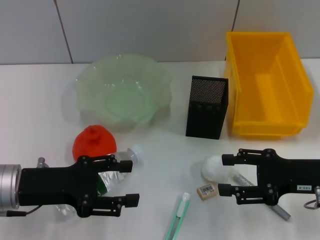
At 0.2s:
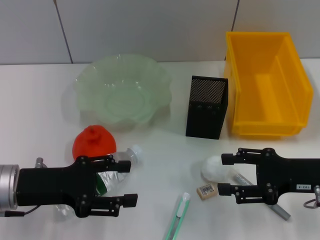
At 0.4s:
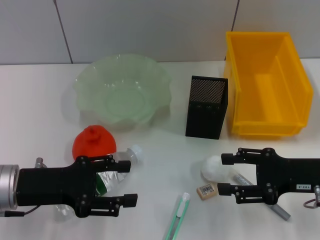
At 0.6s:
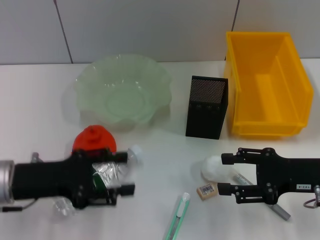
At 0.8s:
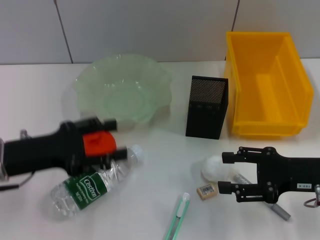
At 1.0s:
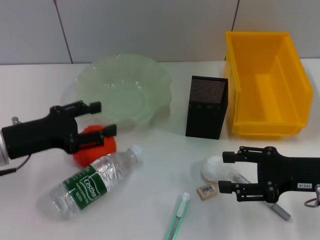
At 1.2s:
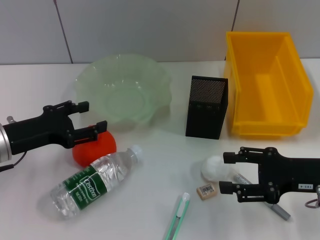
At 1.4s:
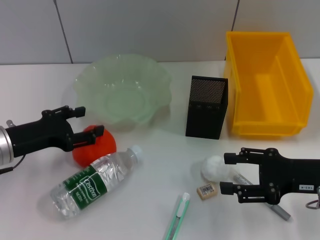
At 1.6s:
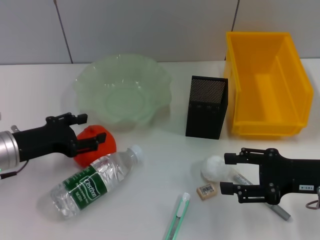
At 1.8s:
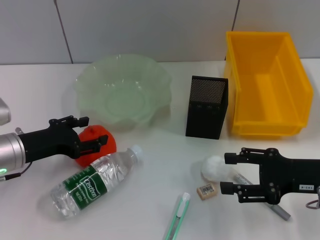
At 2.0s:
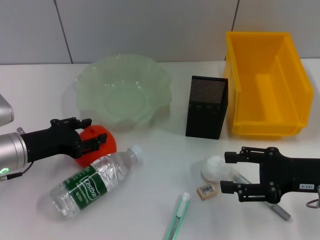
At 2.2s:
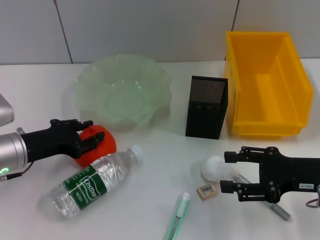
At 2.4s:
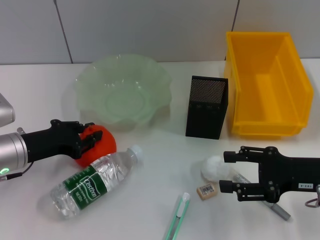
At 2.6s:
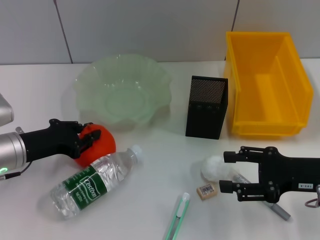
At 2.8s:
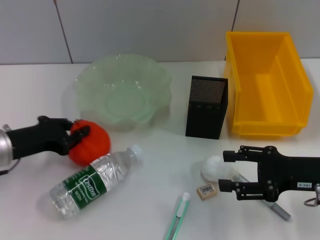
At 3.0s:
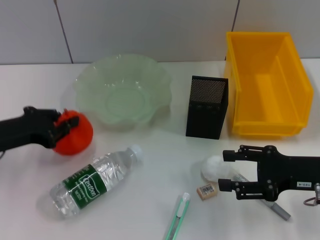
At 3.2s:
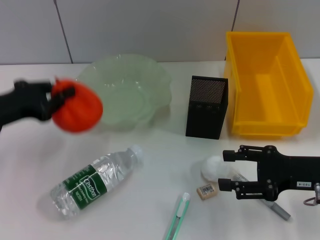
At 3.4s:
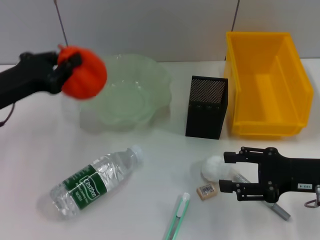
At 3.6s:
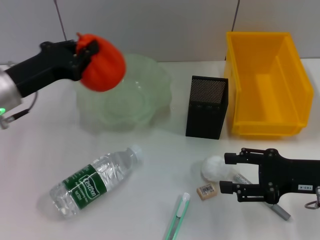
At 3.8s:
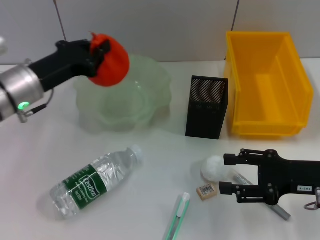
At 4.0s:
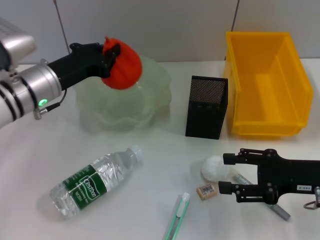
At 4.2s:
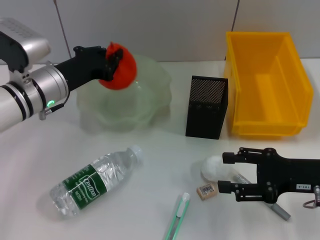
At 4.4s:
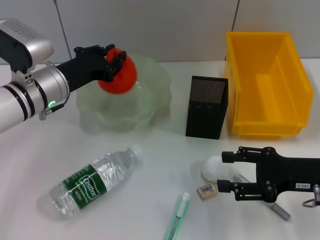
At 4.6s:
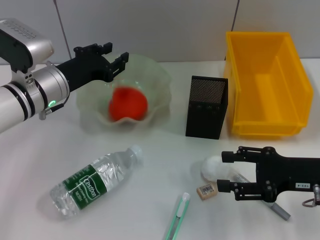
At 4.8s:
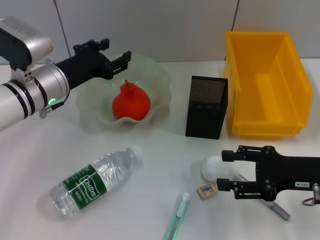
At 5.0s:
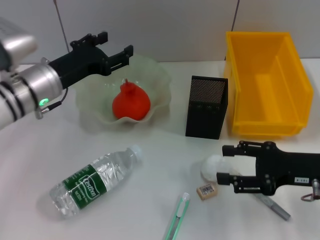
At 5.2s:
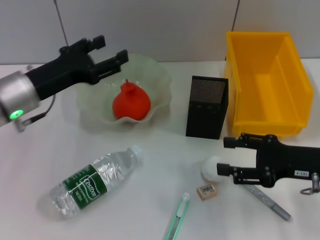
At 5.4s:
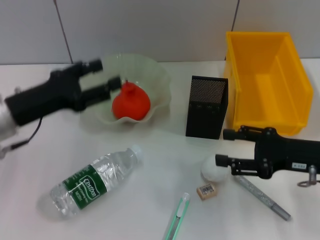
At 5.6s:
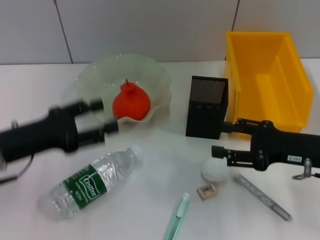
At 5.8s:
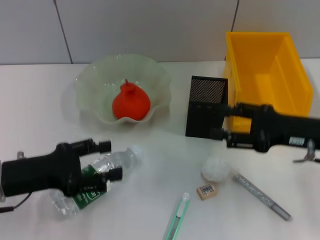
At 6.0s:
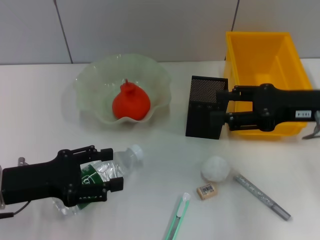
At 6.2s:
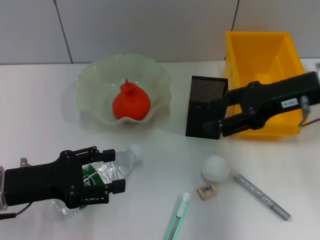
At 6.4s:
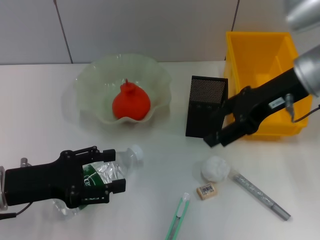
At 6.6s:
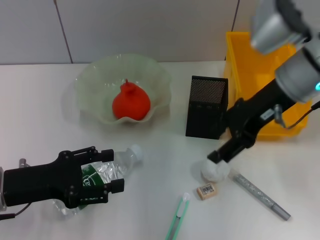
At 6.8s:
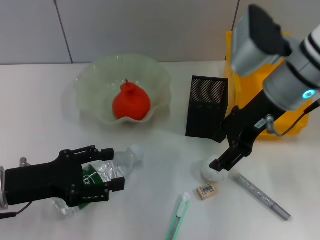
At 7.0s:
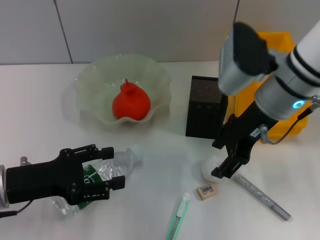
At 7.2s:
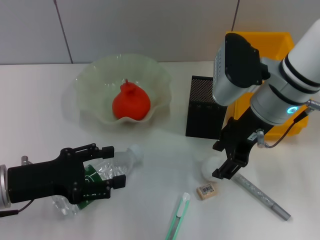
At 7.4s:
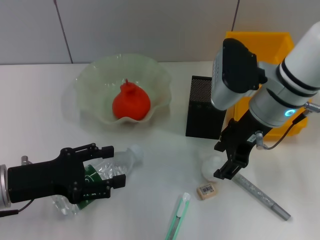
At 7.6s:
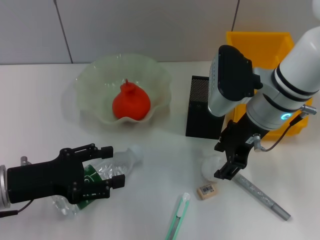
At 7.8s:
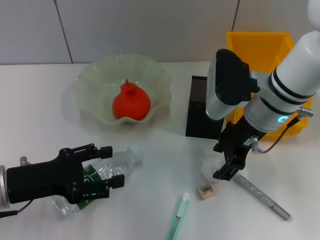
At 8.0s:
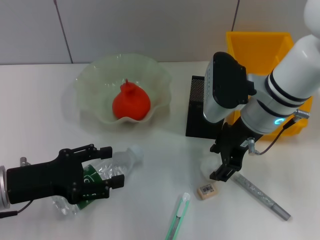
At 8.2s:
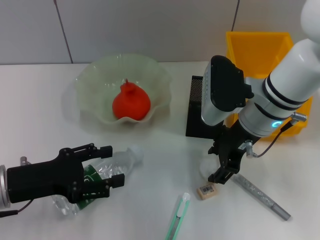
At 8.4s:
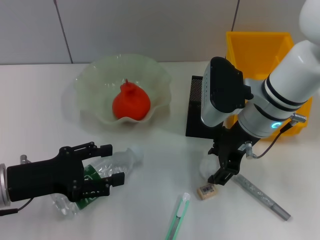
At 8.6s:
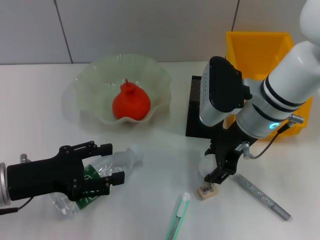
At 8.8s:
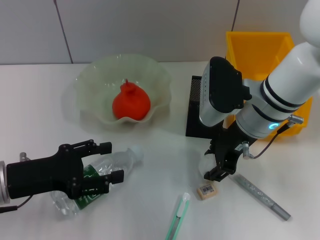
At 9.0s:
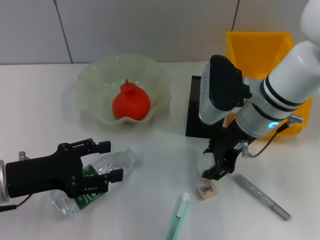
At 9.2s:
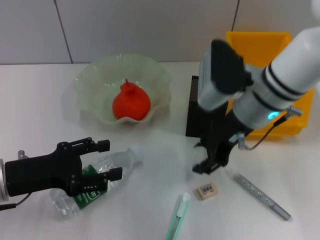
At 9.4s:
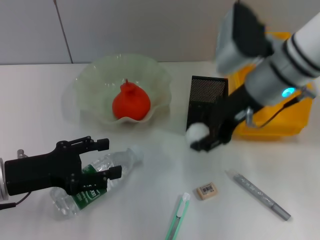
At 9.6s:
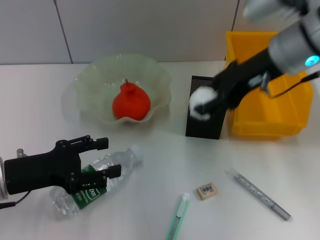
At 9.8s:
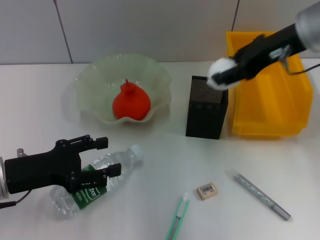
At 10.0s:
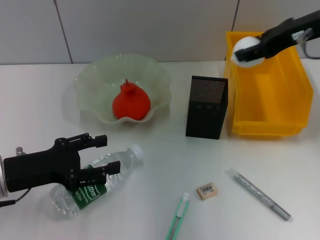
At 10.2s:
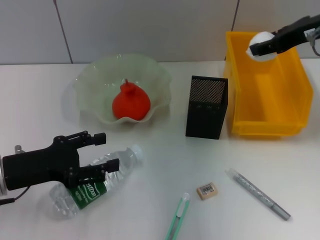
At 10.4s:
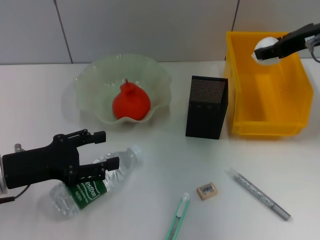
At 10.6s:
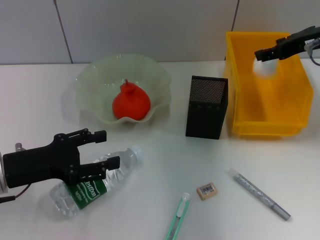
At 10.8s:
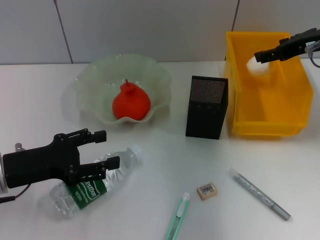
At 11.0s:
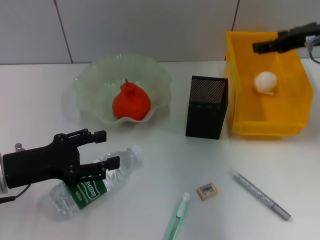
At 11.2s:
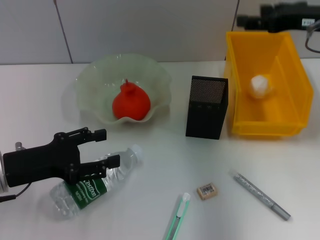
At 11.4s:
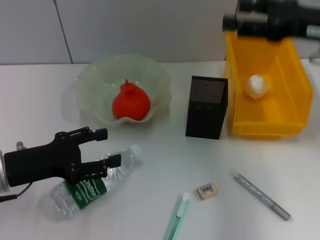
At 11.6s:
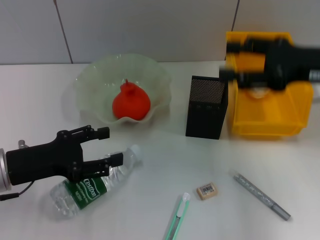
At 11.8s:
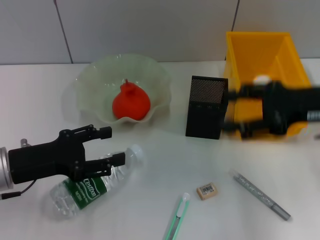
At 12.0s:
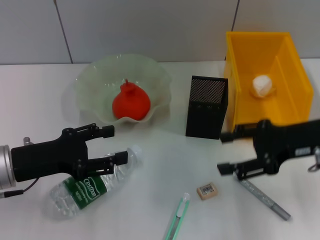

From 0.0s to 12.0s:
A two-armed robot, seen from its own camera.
Step, from 0.0s to 2.4s: Grab the orange with the left hand.
Step, from 2.6s to 4.6s: Place the orange into the fruit bowl with the left hand.
Step, from 5.0s to 8.8s: Grab the paper ball with the right hand.
Step, from 9.0s to 11.2s: Place the paper ball into the trash can with the right hand.
From 0.0s to 1.6s: The left gripper shifts about 5 cm forward.
From 1.6s to 3.0s: The left gripper closes its fingers.
From 3.0s to 4.4s: The left gripper is displaced to the right and forward by approximately 15 cm.
From 4.4s to 6.0s: The left gripper is displaced backward and to the left by roughly 15 cm, and opens up, while the right gripper is displaced upward and forward by approximately 10 cm.
From 6.0s to 7.6s: The right gripper heads to the left, covering about 10 cm.
From 7.6s to 9.0s: The grippers move only a little.
From 9.0s to 10.4s: The right gripper heads to the right and upward, covering roughly 15 cm.
From 10.4s to 12.0s: The right gripper heads backward and downward, covering about 15 cm.

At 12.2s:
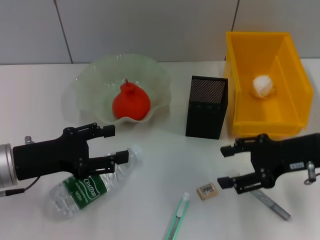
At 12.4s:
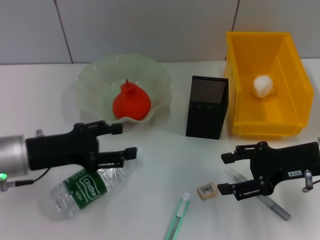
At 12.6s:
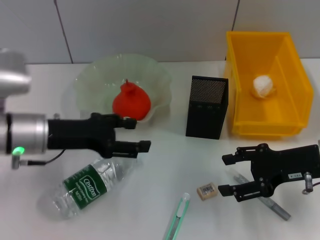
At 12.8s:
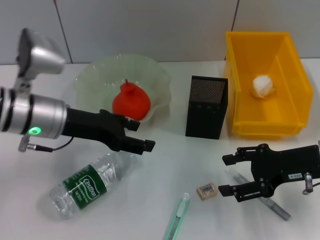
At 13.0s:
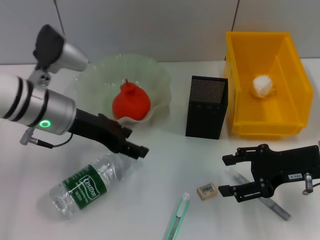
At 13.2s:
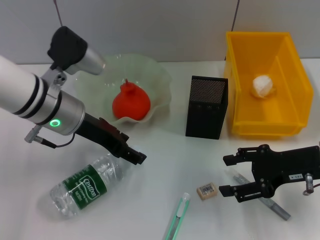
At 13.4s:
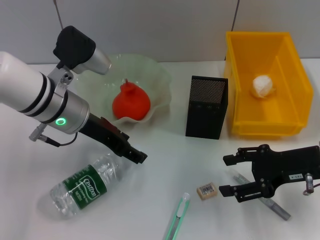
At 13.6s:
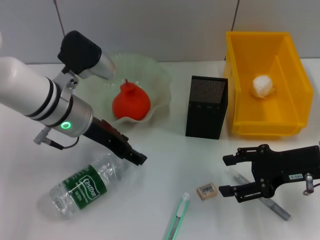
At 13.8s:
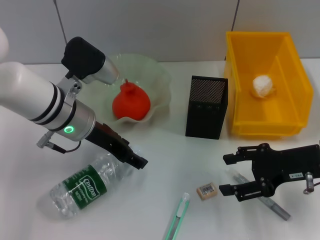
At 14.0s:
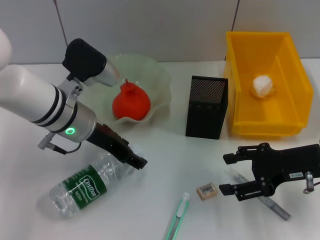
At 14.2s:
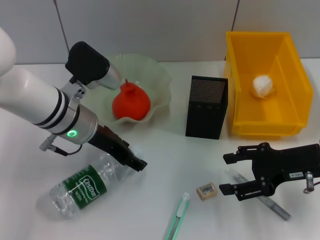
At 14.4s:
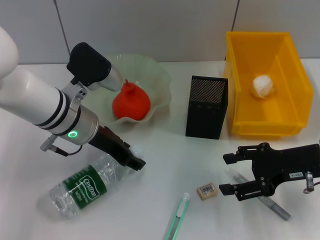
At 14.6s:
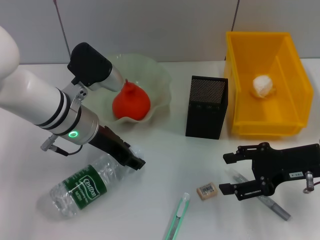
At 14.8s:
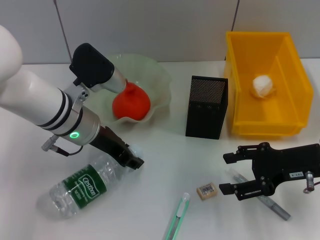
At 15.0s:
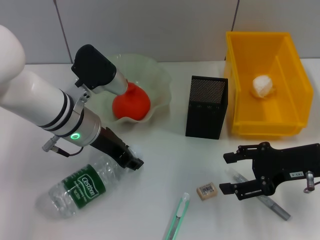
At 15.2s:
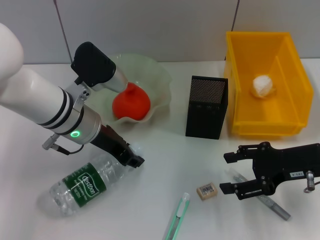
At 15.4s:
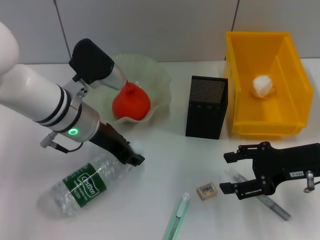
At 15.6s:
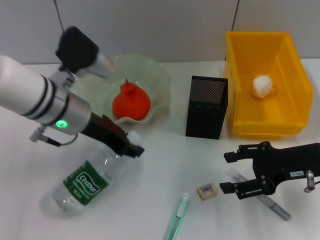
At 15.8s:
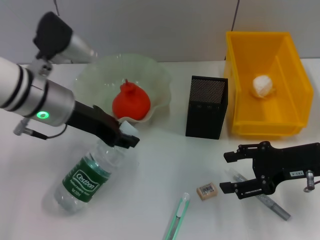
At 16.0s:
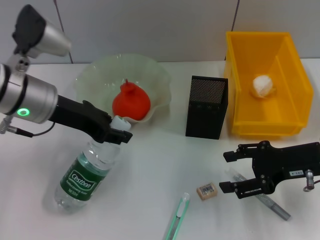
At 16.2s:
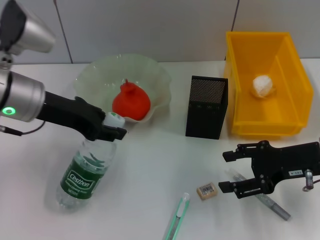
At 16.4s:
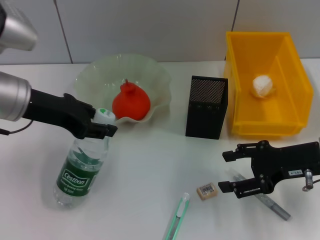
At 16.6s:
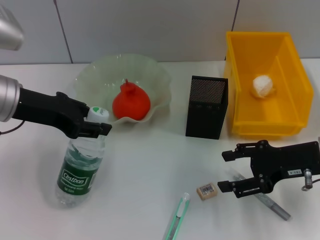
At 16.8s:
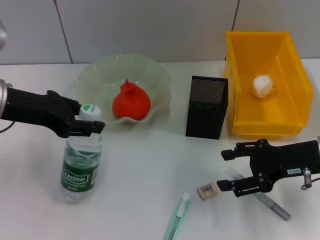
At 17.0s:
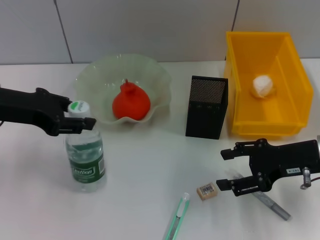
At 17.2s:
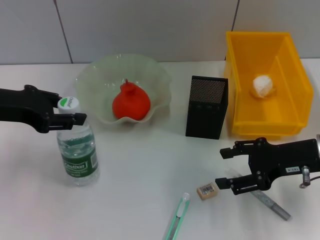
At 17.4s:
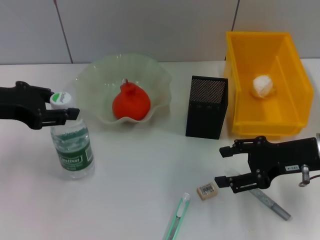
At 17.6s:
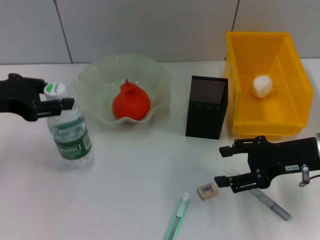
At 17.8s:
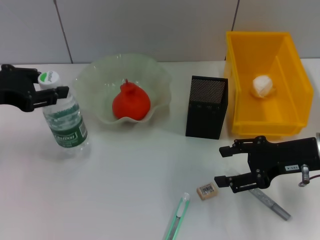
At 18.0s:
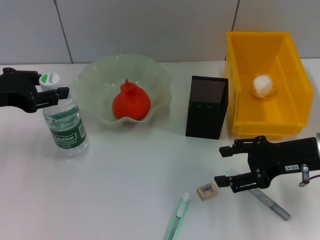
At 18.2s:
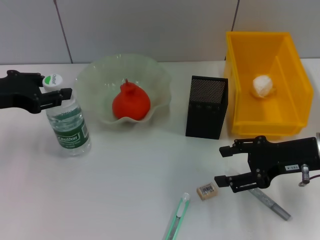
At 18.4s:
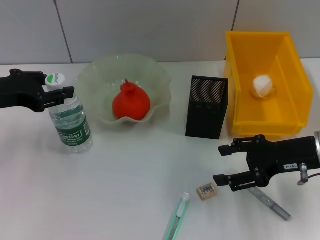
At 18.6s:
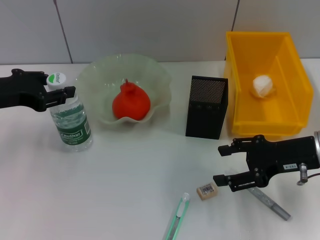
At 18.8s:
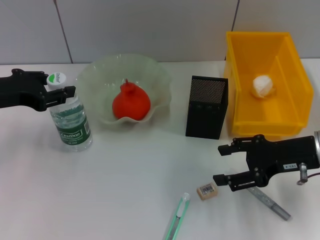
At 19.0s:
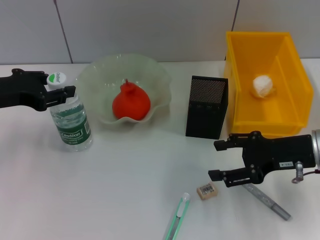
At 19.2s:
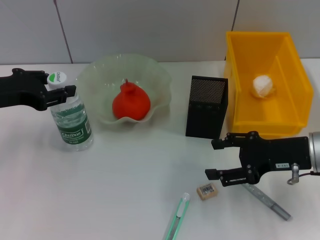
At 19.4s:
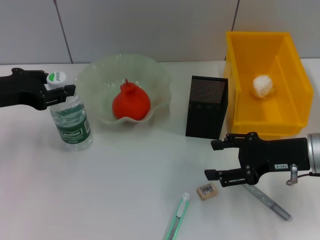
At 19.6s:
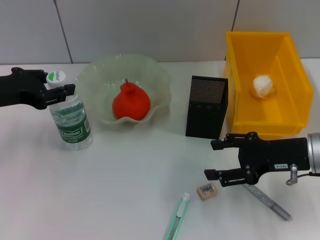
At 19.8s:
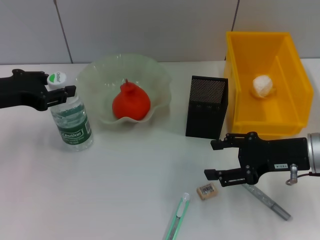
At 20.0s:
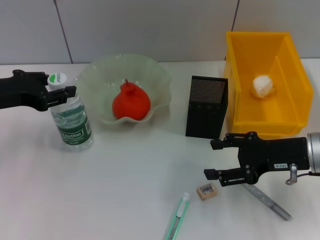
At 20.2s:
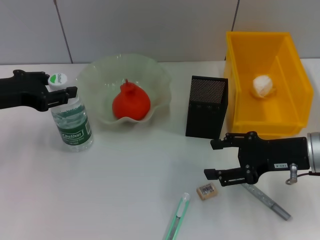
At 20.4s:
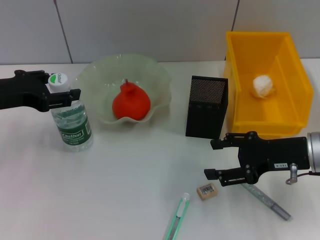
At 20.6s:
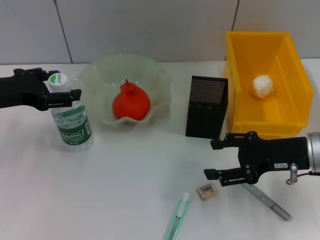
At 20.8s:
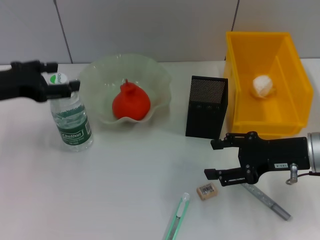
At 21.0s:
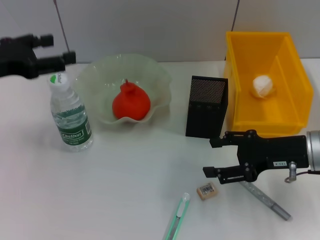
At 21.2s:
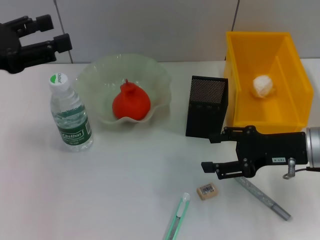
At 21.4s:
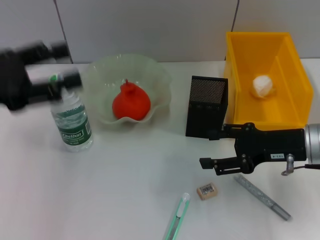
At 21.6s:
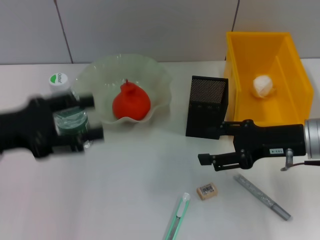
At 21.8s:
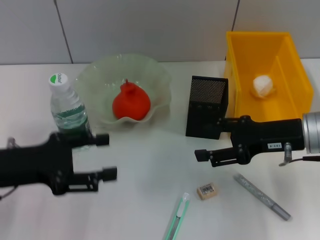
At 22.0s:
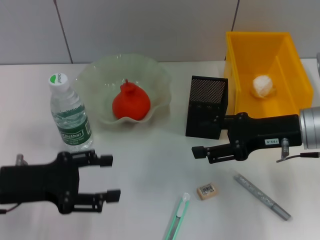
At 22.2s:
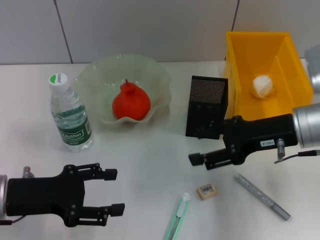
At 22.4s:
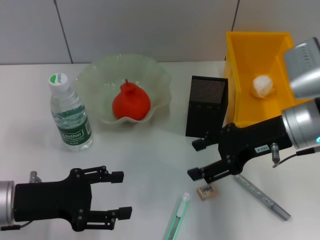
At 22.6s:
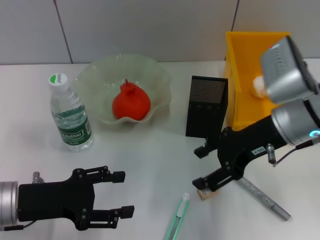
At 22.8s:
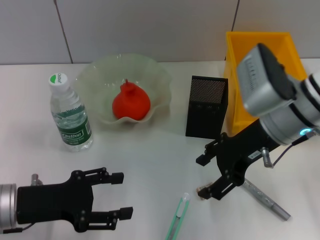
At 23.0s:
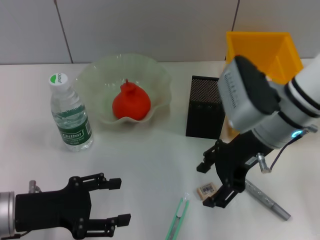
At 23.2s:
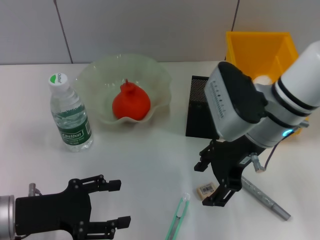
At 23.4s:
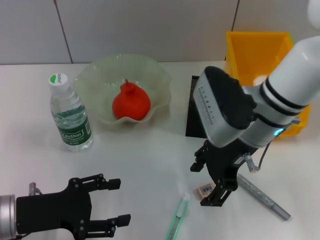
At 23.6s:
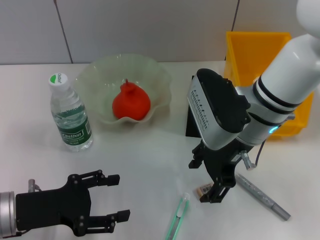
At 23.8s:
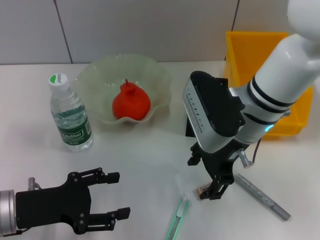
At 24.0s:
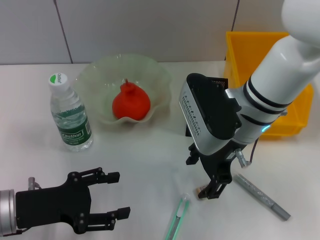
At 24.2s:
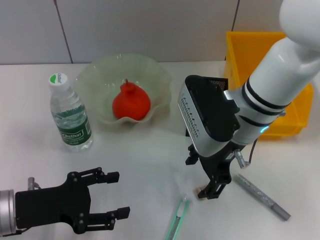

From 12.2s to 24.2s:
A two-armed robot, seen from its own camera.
Step, from 12.2s to 14.8s: Grab the water bottle with the left hand.
Step, from 15.0s to 20.2s: Place the water bottle on the table with the left hand.
From 12.2s to 13.8s: The left gripper heads to the right and forward, covering some 15 cm.
From 13.8s to 15.2s: The left gripper closes its fingers.
From 15.2s to 16.6s: The left gripper heads to the left and upward, covering about 10 cm.
From 16.6s to 18.2s: The left gripper is displaced to the left by roughly 5 cm.
From 18.2s to 19.8s: There are only small adjustments of the grippers.
From 21.2s to 22.6s: The left gripper goes some 15 cm downward and backward. The right gripper heads to the left and upward, covering about 10 cm.
From 22.6s to 24.2s: The right gripper is displaced to the left by approximately 10 cm.
